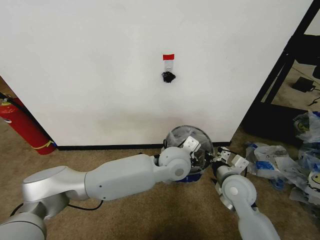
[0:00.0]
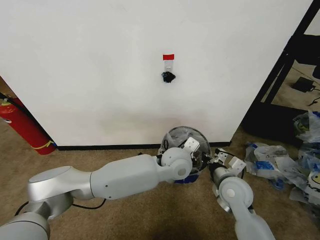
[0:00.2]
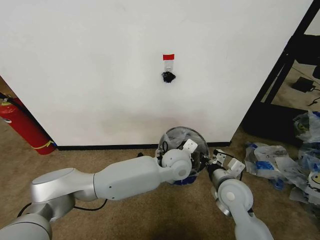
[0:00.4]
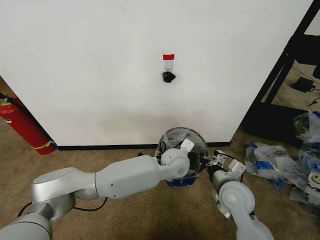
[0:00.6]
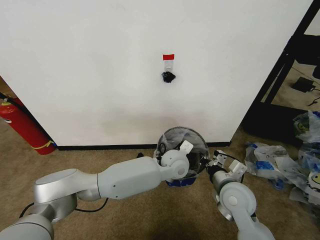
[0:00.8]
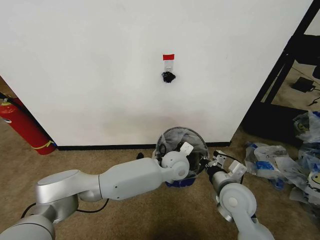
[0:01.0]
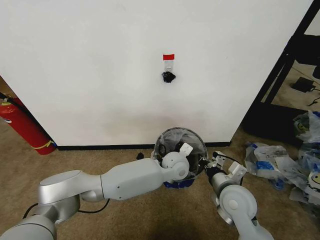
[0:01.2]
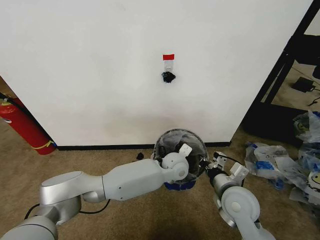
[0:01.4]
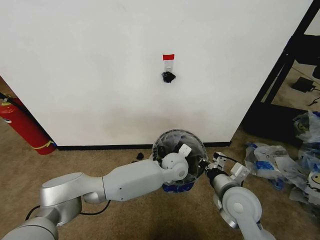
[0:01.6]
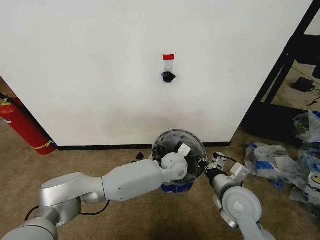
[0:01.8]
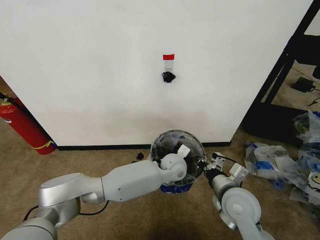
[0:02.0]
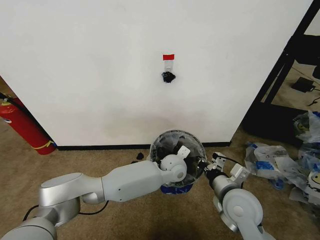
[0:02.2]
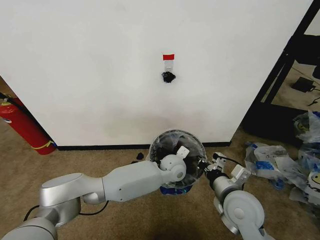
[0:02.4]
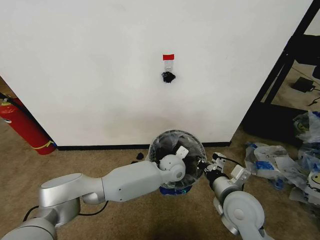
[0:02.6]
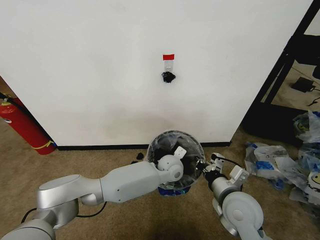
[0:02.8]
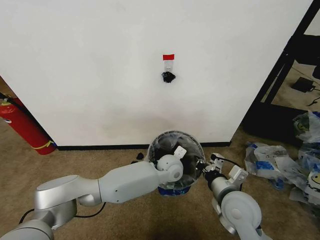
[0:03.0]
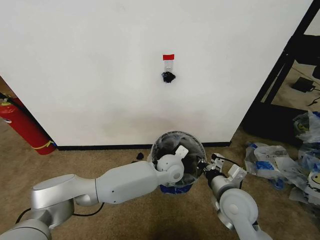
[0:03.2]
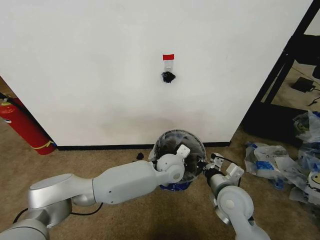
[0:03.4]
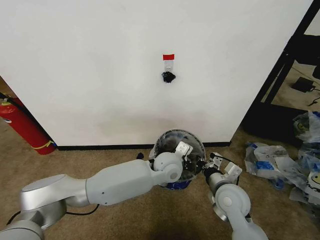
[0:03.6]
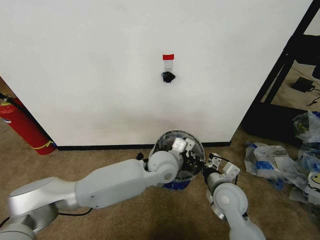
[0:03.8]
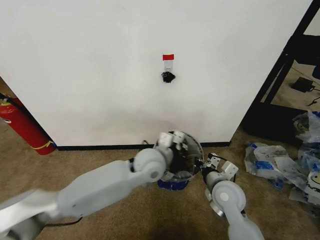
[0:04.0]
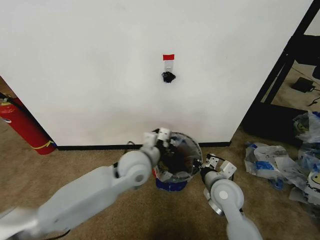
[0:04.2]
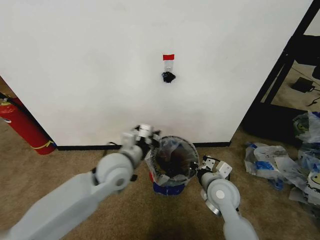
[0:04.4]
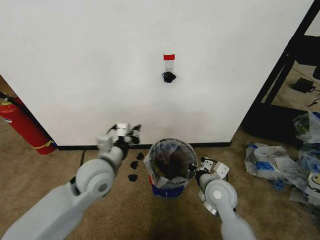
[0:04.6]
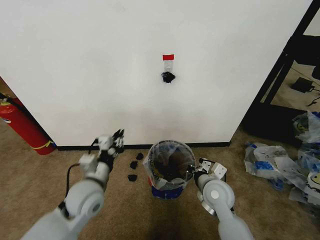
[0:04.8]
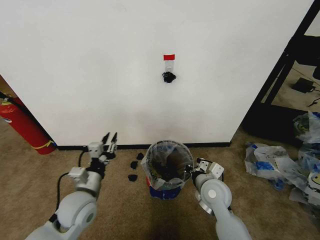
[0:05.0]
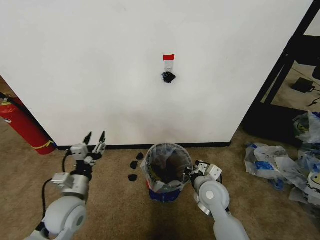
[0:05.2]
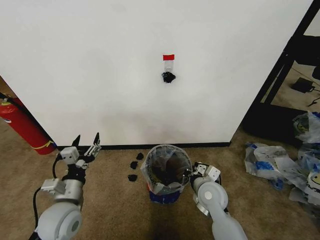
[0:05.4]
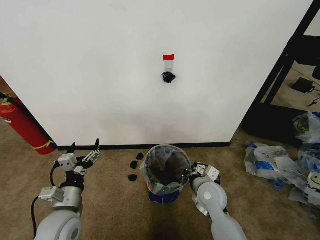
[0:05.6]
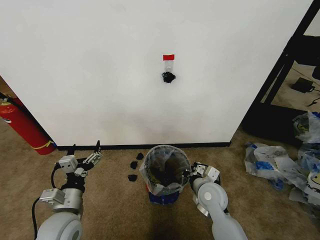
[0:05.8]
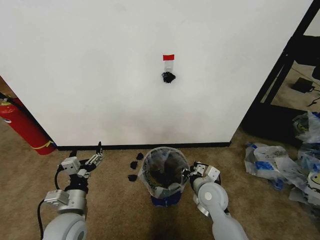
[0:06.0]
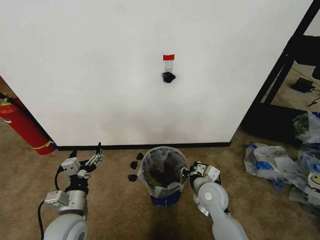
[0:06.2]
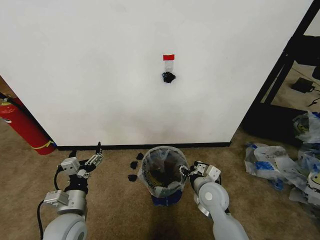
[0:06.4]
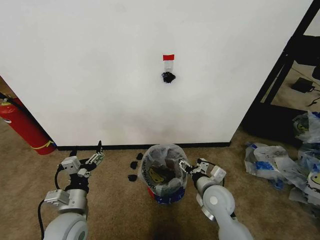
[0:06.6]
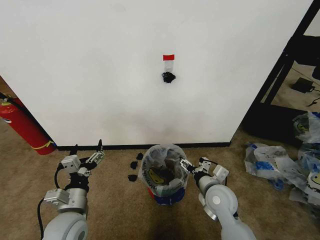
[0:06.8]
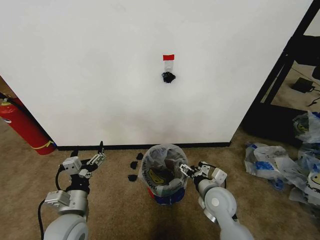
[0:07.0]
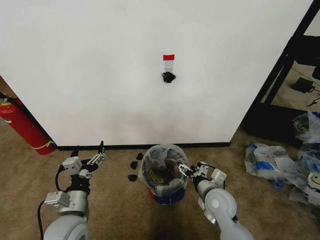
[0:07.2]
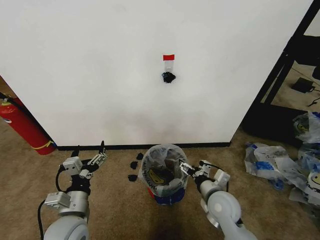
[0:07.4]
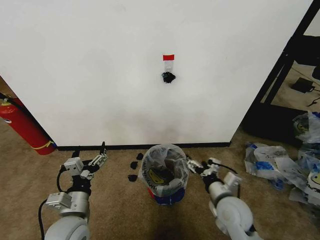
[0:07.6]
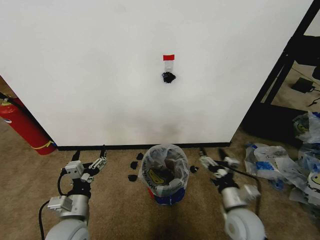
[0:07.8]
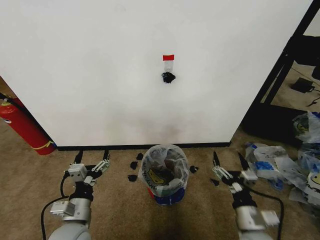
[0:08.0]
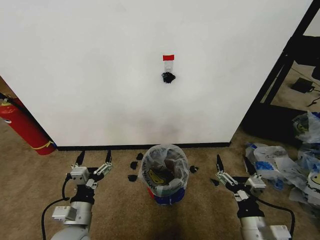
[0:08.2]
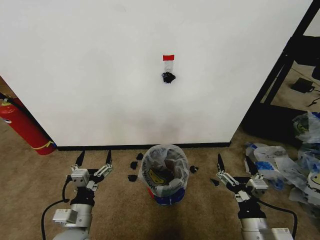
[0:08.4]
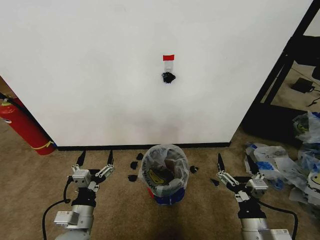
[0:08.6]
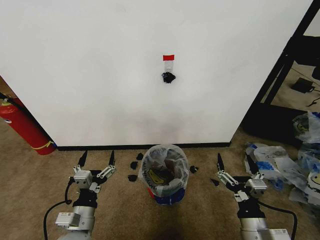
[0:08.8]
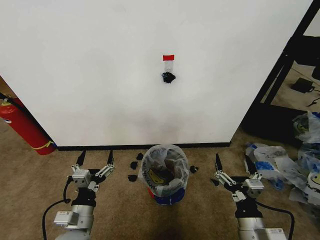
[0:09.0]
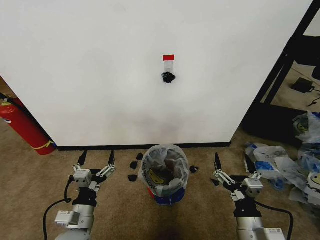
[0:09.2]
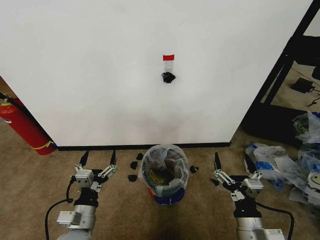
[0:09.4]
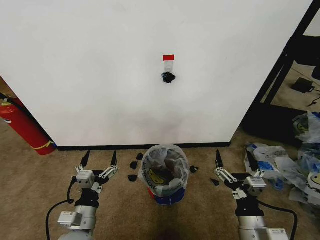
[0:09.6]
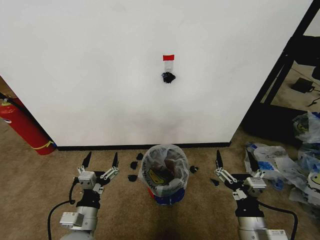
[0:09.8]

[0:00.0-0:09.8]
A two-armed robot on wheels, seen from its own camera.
Task of the whole recording: Pick up the garbage bag from the wall and place it over the trash bin.
0:00.0 to 0:01.4: The left gripper goes approximately 10 cm downward; the right gripper ends up approximately 5 cm from where it was.
0:01.4 to 0:02.8: There are only small adjustments of the grippers.
0:02.8 to 0:04.2: The left gripper is displaced to the left, upward and backward by about 20 cm. The right gripper travels forward by approximately 5 cm.
0:04.2 to 0:05.6: The left gripper moves to the left, backward and downward, approximately 25 cm, and opens, while the right gripper ends up some 5 cm from where it was.
0:05.6 to 0:07.0: The right gripper opens.
0:07.0 to 0:08.4: The right gripper heads backward, covering about 15 cm.
0:08.4 to 0:09.8: The grippers make only small movements.
